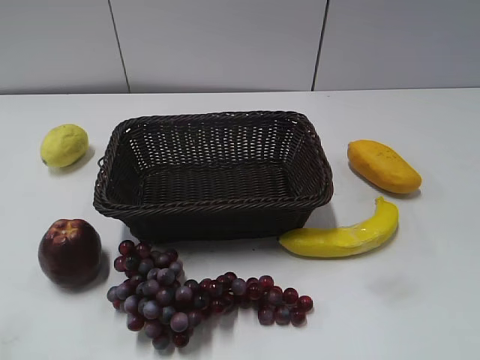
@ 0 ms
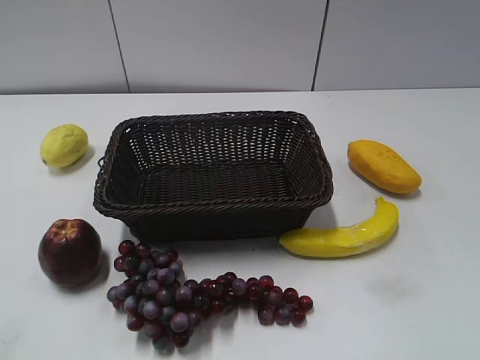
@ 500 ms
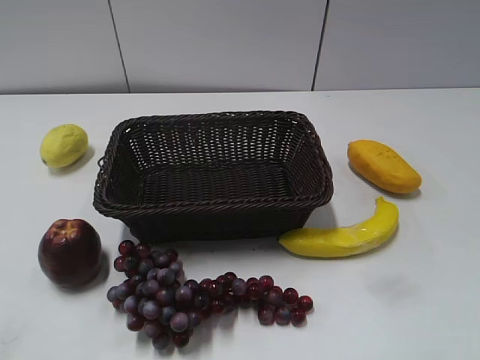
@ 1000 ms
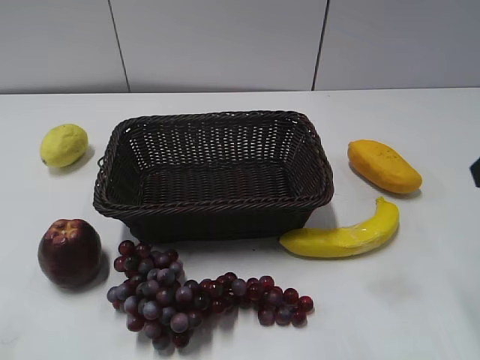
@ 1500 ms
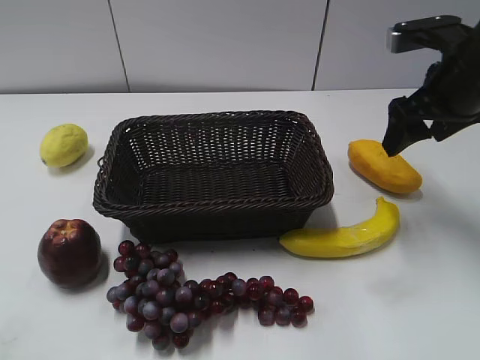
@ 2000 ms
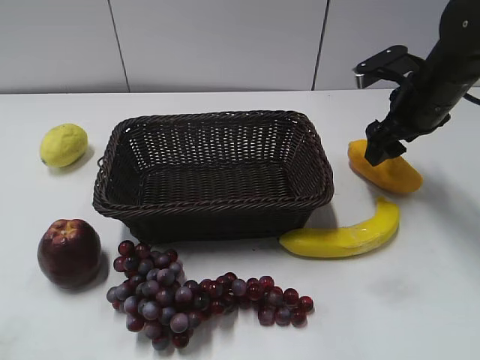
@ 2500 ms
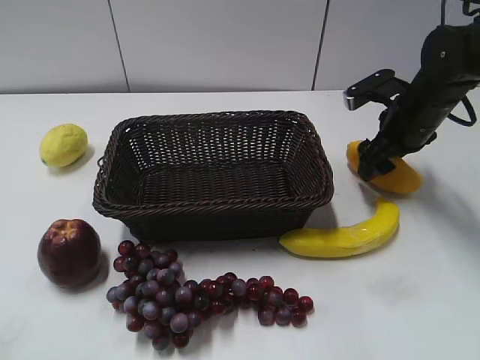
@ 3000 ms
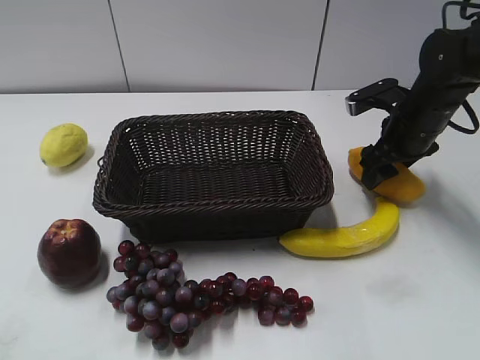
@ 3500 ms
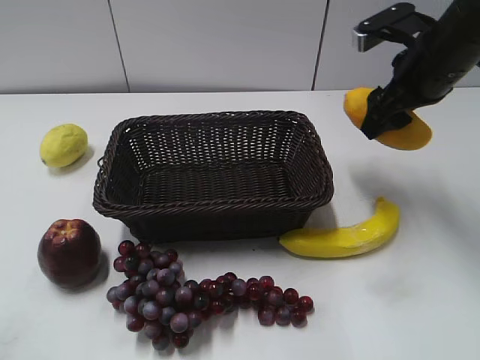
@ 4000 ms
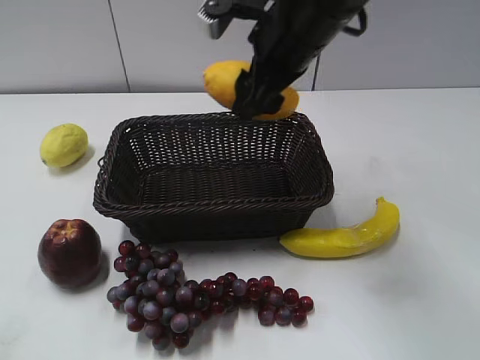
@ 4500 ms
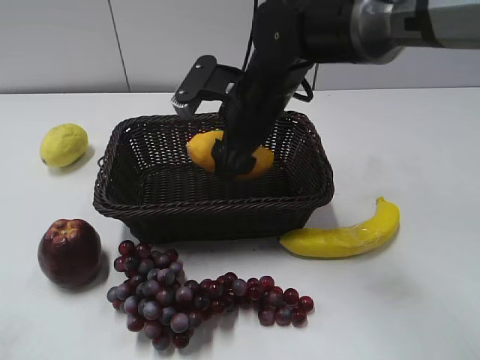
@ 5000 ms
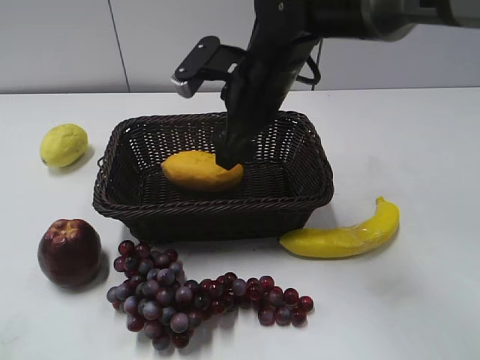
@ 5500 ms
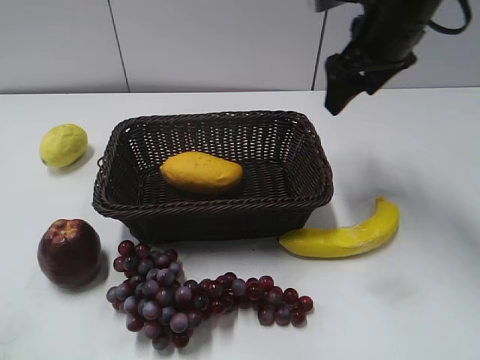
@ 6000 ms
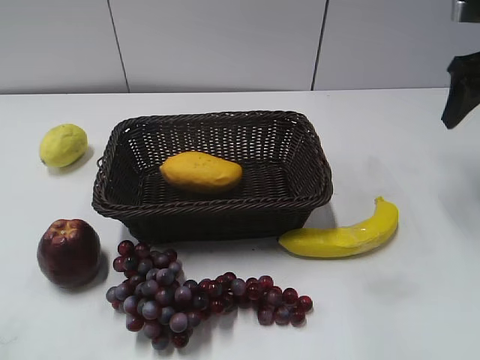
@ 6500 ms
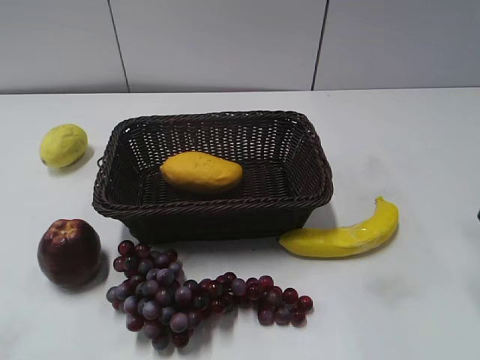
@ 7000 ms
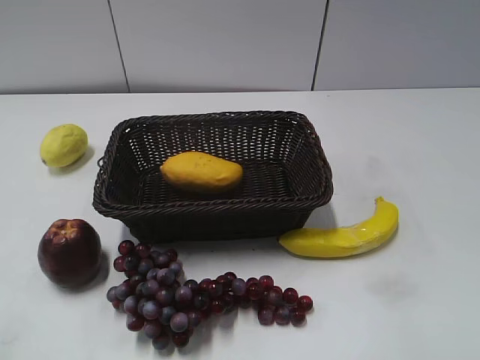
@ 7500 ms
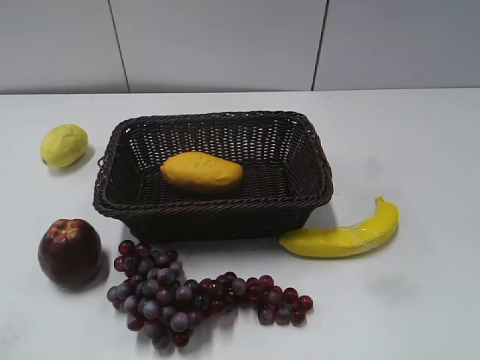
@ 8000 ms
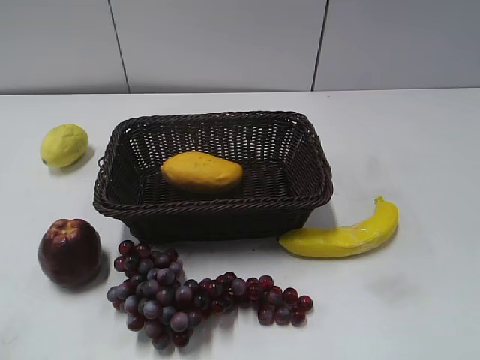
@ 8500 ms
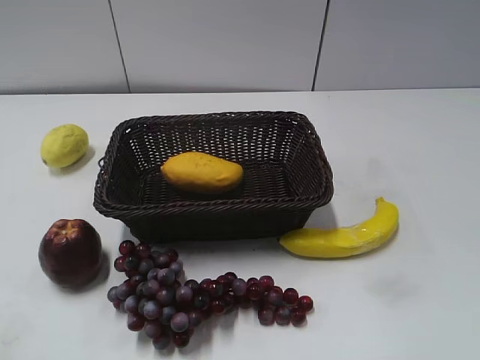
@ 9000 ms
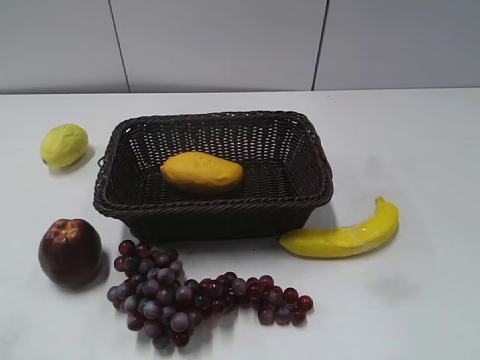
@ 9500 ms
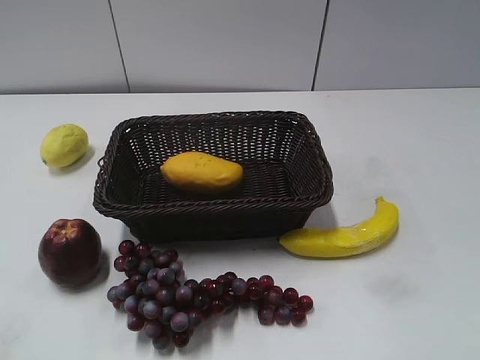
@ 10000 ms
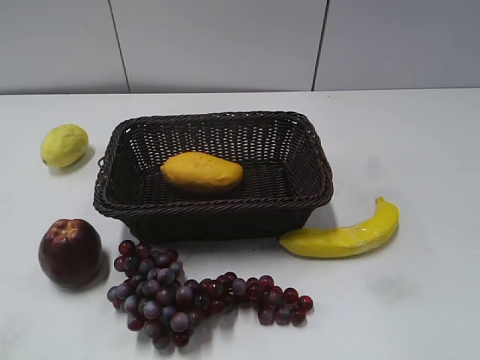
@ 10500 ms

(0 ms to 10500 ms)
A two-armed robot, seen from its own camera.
Step, 1500 ms - 3000 ms: Grasp the mango with right gripper.
Step, 3500 ms - 5000 ms: Place the mango in the basket with right gripper.
2000 ms - 4000 ms: The right gripper reaches roughly 10 cm downward, then returns, and closes up.
4000 ms - 6500 ms: The right gripper moves to the right, some 10 cm, and opens, then closes again.
6500 ms - 8500 ms: The right gripper is displaced backward by approximately 40 cm.
8500 ms - 10500 ms: The two grippers keep their place.

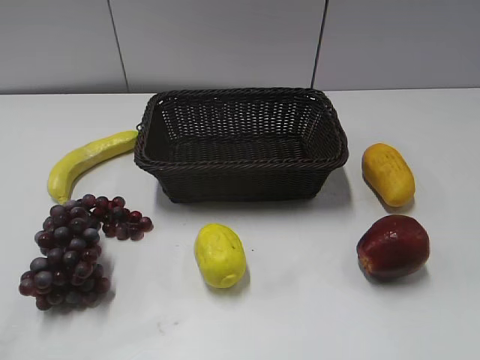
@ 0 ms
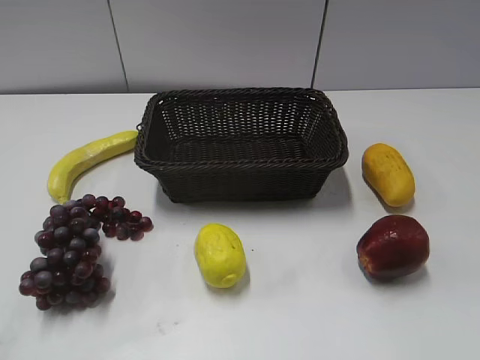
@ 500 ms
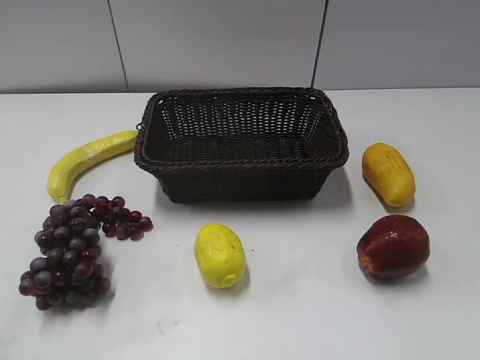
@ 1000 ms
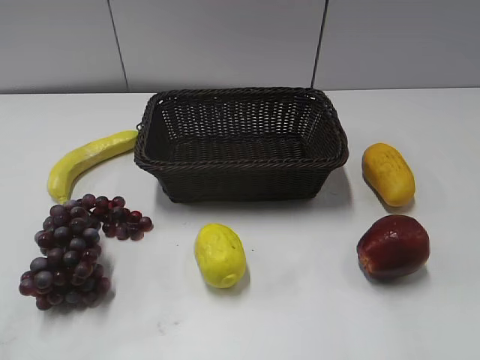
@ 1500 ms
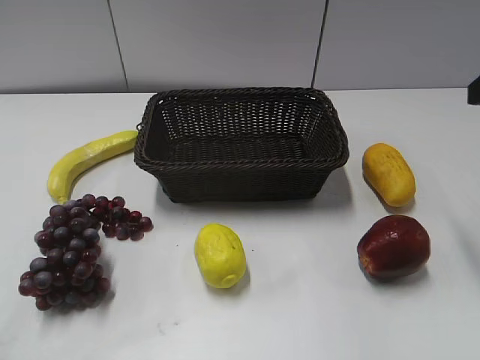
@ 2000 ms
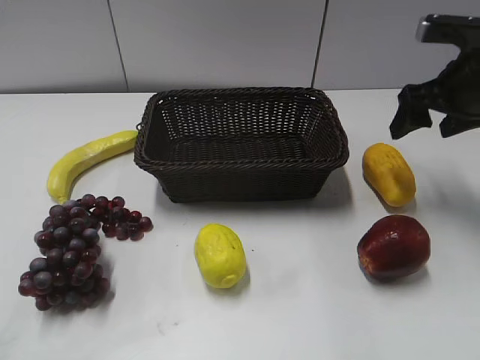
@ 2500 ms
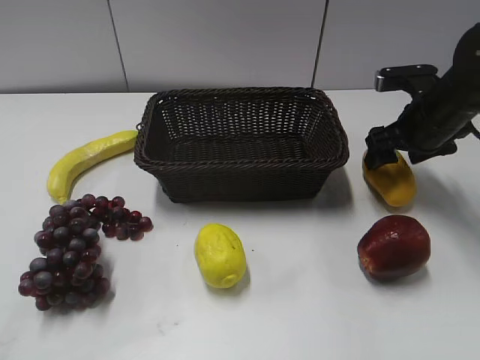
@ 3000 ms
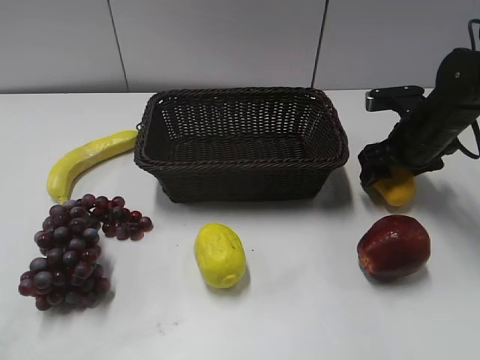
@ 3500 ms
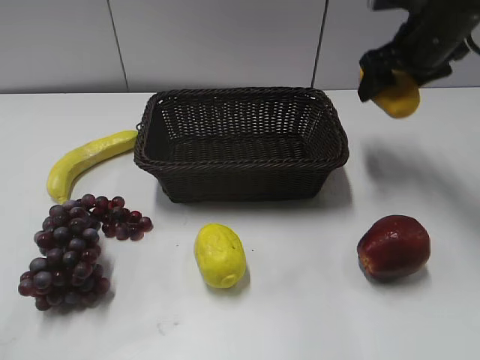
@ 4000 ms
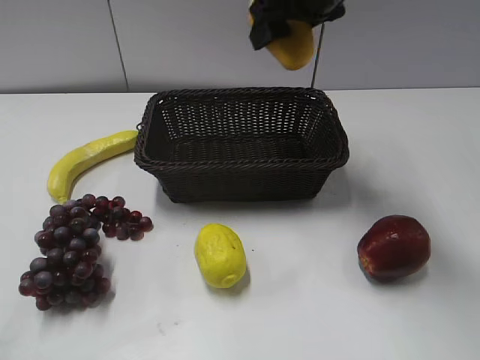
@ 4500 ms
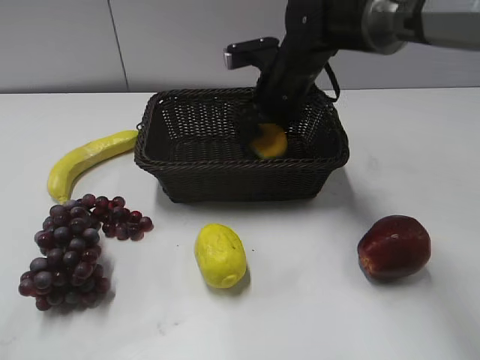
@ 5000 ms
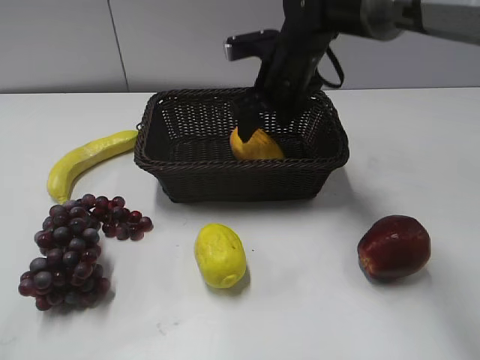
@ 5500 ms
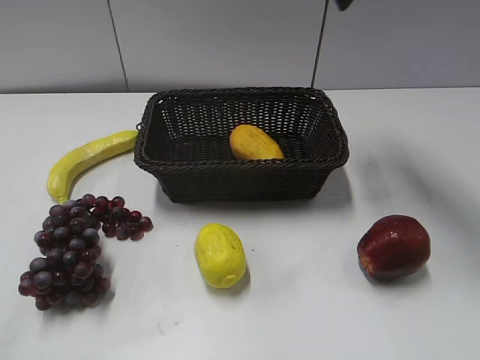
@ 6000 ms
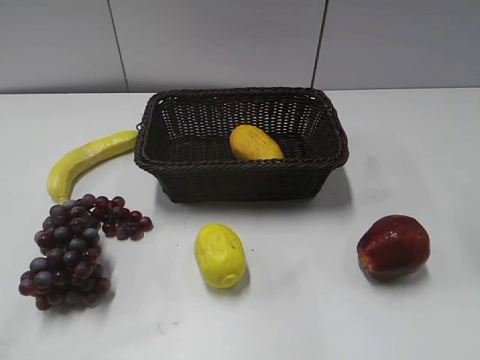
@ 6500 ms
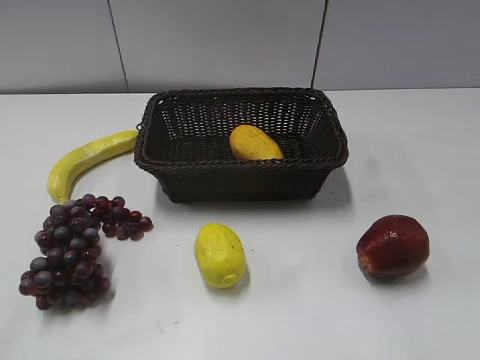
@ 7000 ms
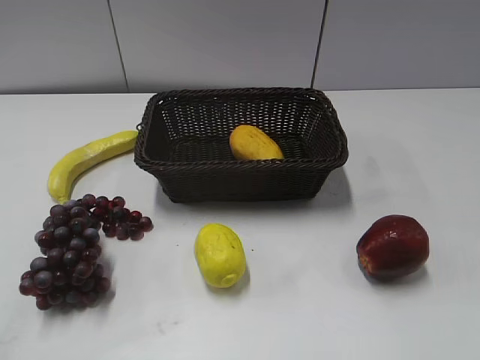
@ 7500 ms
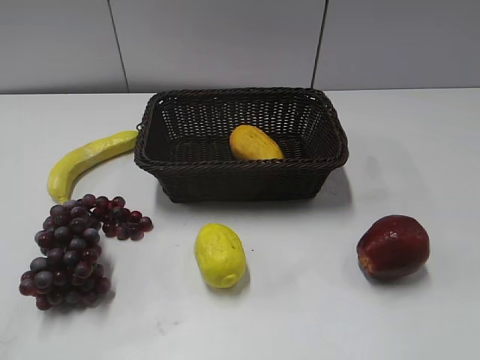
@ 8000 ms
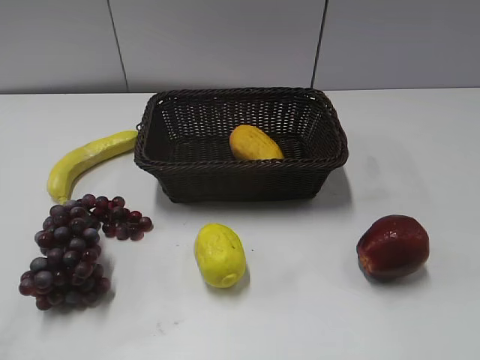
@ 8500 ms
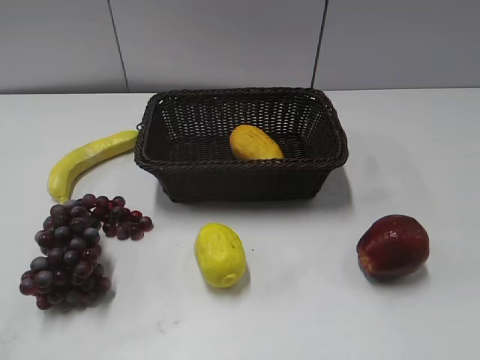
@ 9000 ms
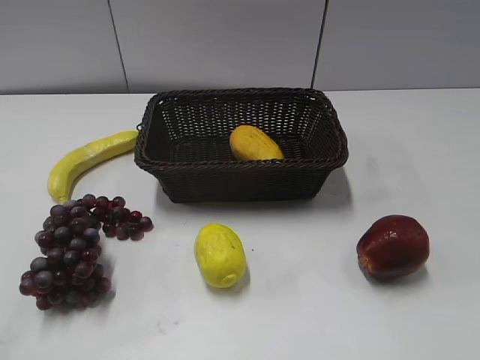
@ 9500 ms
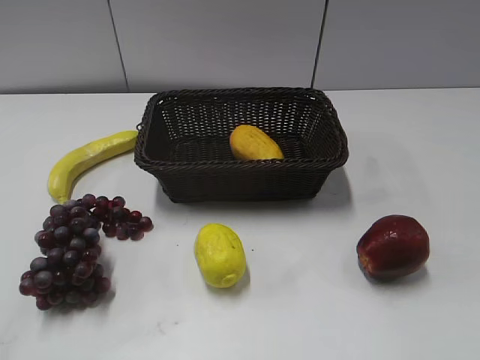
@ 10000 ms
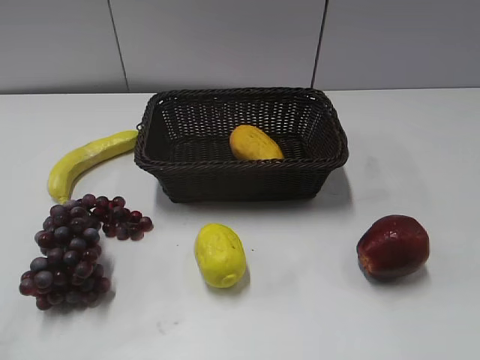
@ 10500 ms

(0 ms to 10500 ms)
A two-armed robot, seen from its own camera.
Step, 2000 ms - 3000 ms: Grasp the mango with right gripper.
Step, 4000 ms - 5000 ms: Place the mango in the basket with right gripper.
2000 ms - 4000 ms: The right gripper goes about 15 cm forward and to the left, and moves roughly 20 cm downward and comes back.
4000 ms - 6500 ms: The right gripper goes up and down, roughly 25 cm each way, reversing 2 times.
